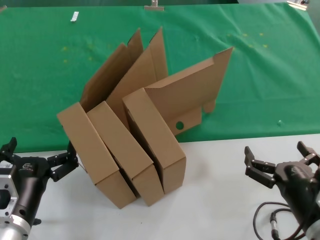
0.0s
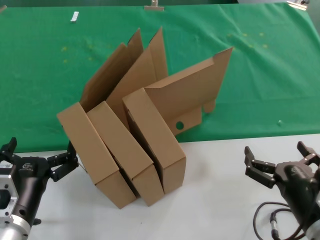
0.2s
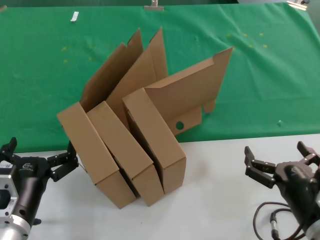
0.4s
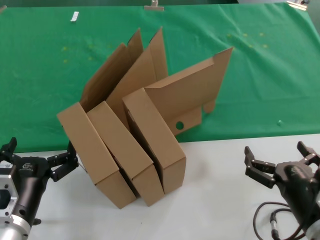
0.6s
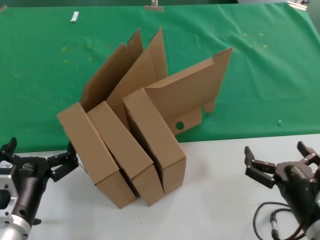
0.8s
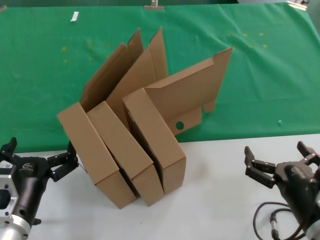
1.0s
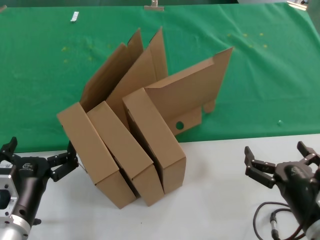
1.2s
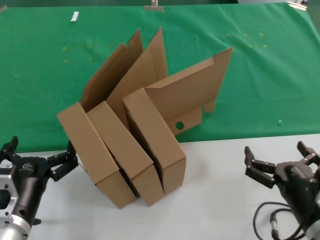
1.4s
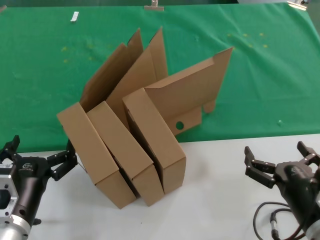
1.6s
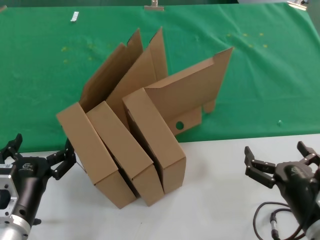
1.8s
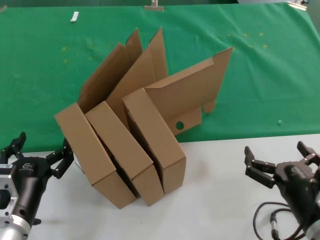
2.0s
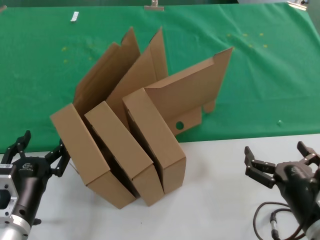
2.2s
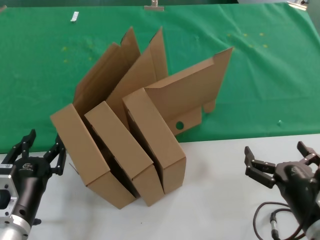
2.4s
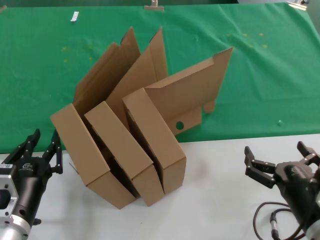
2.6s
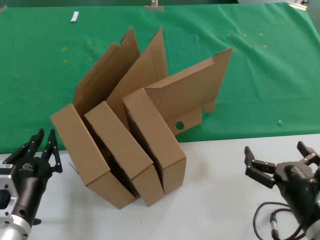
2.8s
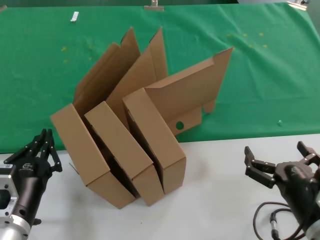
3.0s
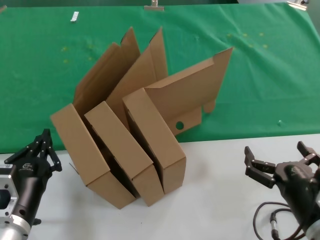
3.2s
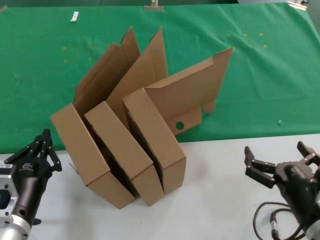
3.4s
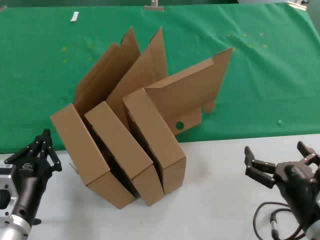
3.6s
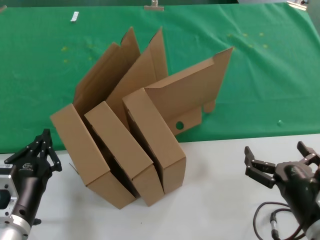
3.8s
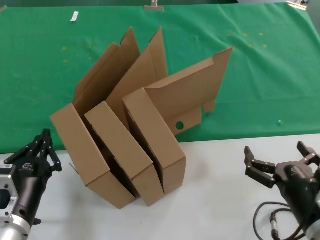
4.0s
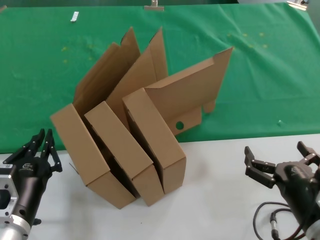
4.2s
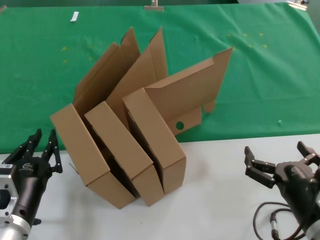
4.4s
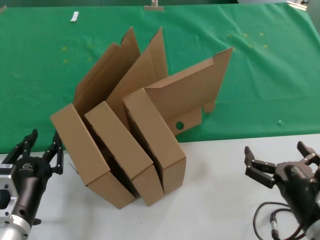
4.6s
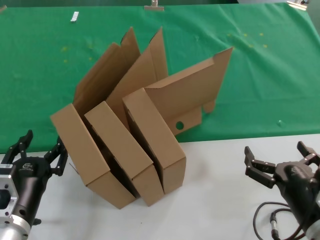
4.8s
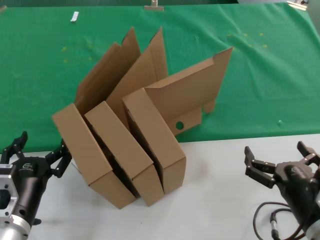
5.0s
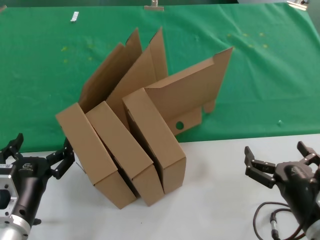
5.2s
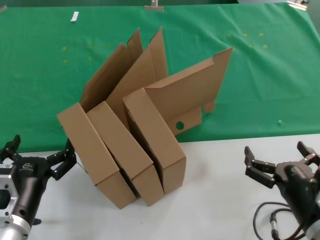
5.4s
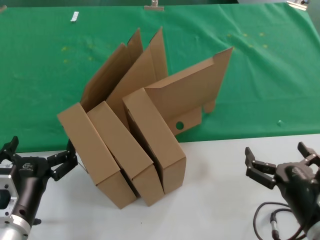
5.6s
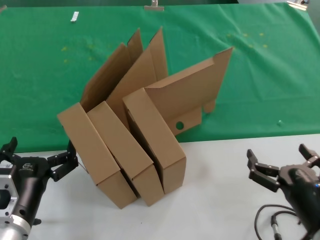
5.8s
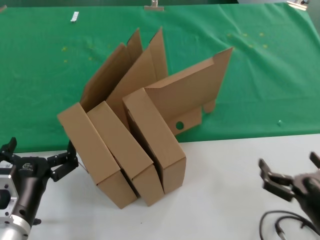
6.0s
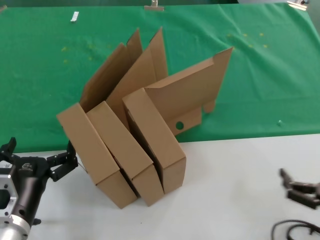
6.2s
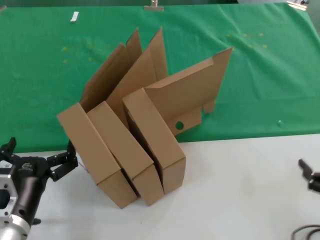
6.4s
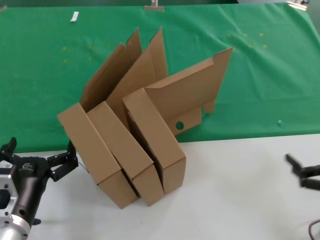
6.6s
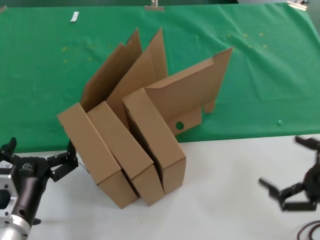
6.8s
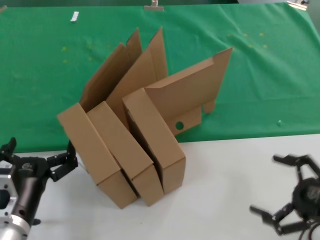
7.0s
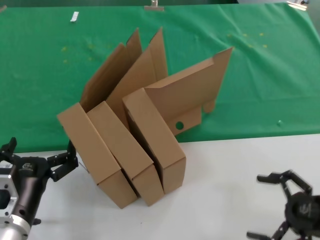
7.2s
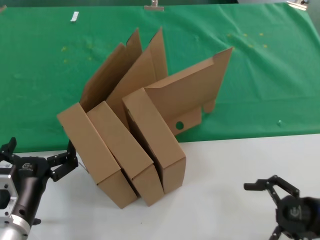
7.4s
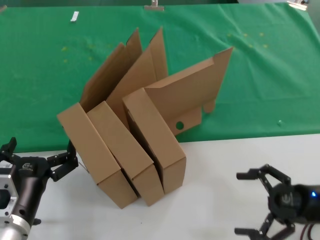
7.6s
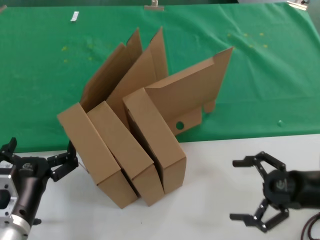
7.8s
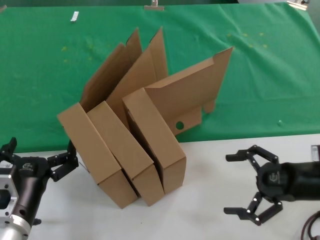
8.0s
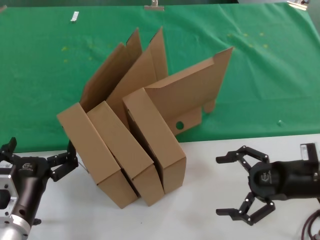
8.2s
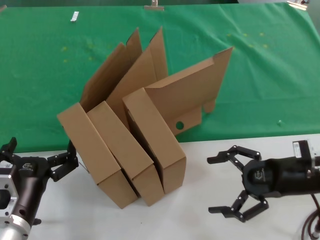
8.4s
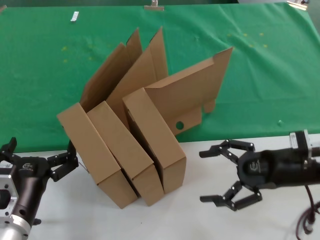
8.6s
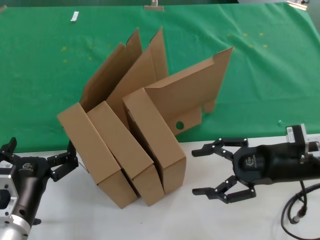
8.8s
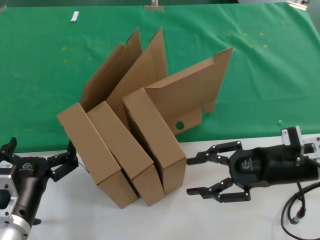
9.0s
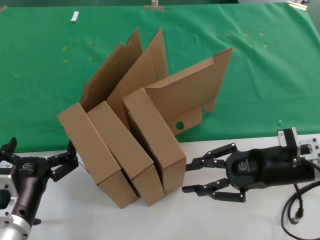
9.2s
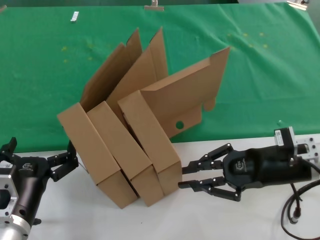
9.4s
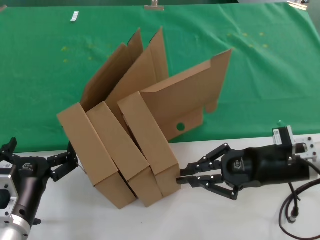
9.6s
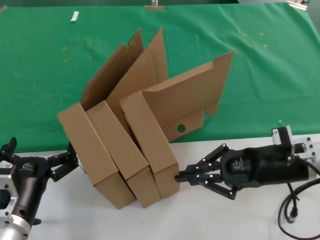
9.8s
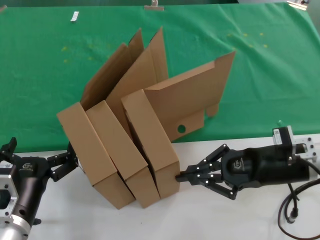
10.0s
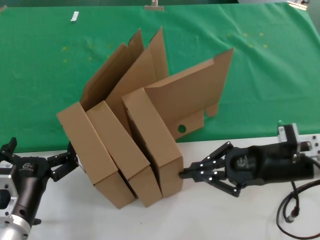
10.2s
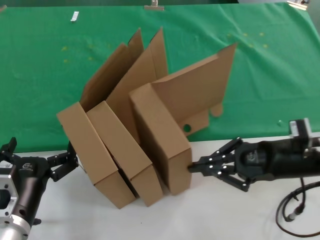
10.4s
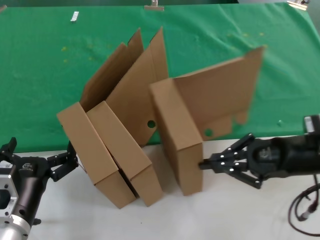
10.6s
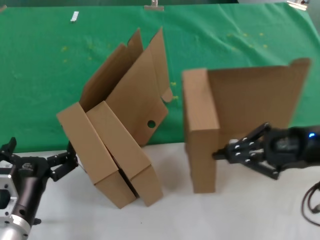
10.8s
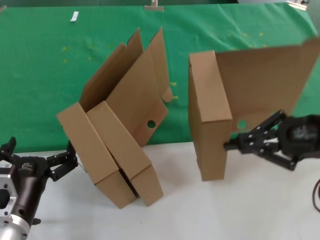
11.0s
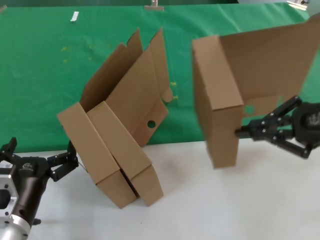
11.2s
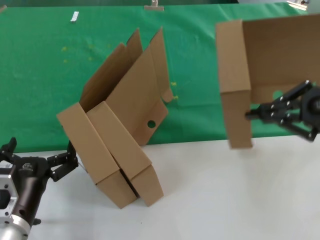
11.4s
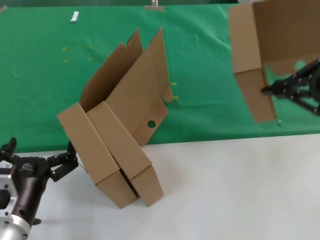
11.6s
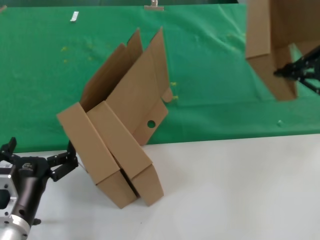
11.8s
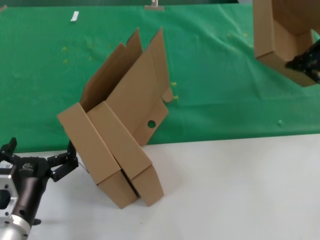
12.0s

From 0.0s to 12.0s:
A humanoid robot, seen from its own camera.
Task of the whole recording: pick up the paper box and put it at the back.
Step, from 0.0s to 10.0s: Grasp the paper box.
From 0.0s to 4.4s: Both hands stay put.
From 4.4s to 6.0s: There are only small adjustments of the hands.
From 6.0s to 7.6s: The right hand heads forward and to the right, covering approximately 15 cm.
From 7.6s to 9.0s: The right hand goes roughly 10 cm to the left, forward and upward.
From 9.0s to 10.4s: The hands move only a little.
From 10.4s to 12.0s: The right hand travels upward and to the right by roughly 20 cm.

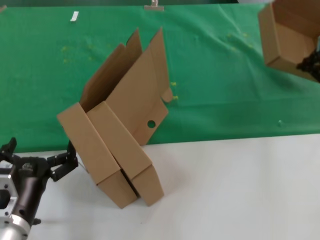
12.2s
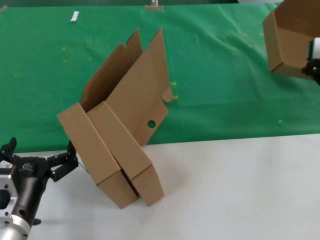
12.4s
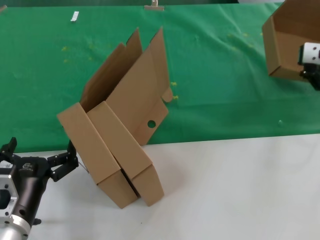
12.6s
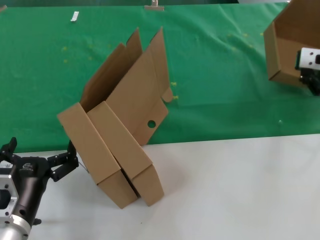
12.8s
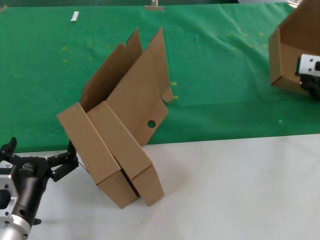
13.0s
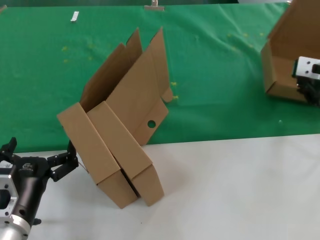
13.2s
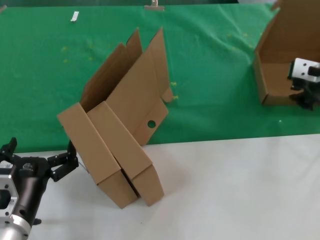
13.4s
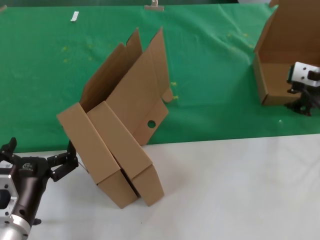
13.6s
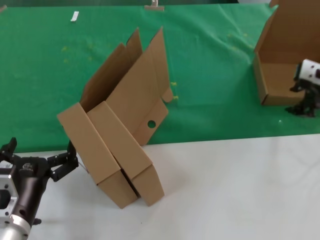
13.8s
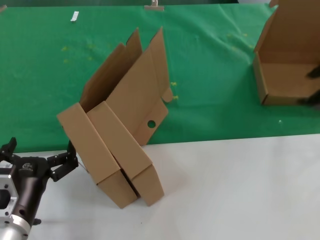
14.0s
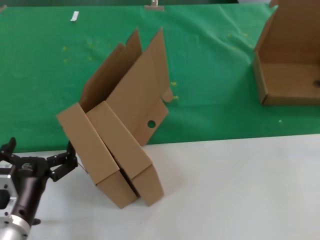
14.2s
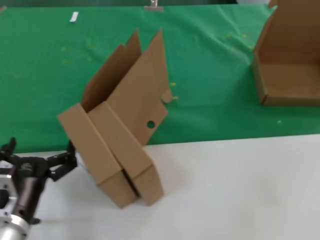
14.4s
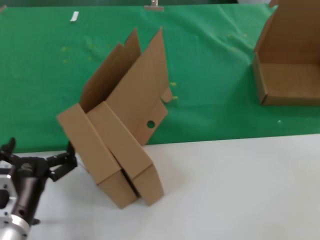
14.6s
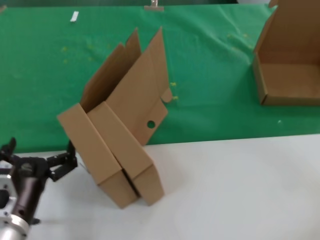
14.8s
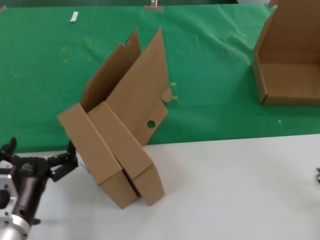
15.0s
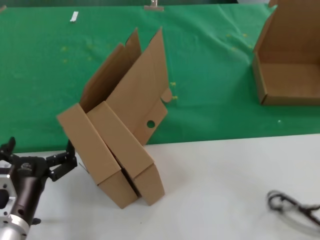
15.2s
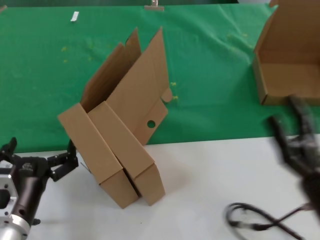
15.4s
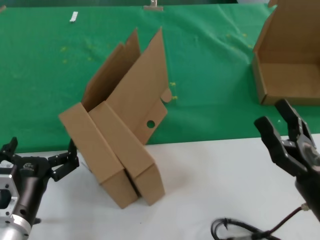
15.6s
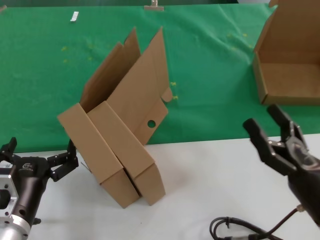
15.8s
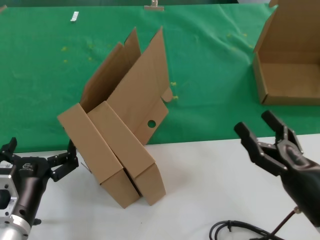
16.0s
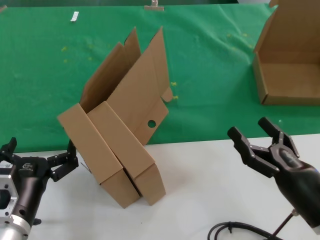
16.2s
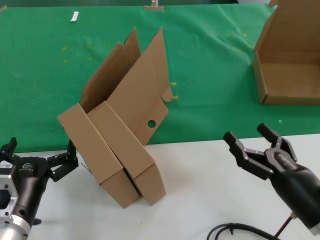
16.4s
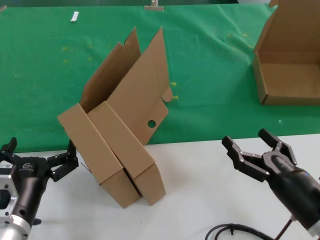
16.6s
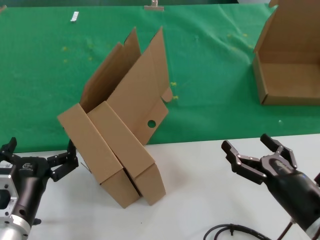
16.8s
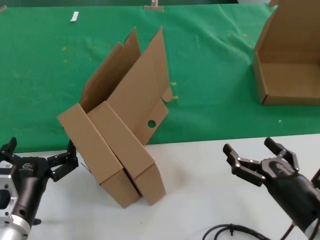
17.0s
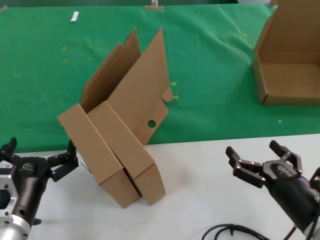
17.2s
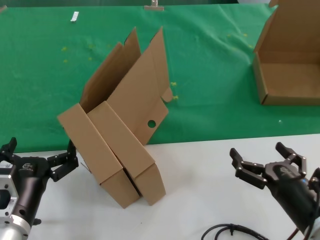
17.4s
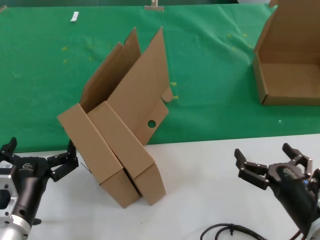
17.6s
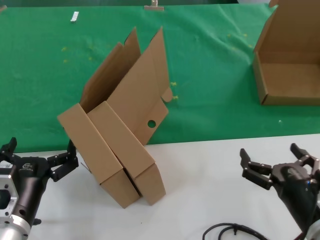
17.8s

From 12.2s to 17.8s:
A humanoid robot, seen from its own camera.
Task of the whole recording: pick up the paper box and put it at the back.
From 12.2s to 13.6s: The right hand heads downward, covering approximately 5 cm.
From 13.6s to 15.0s: The right hand moves backward, to the right and downward, approximately 25 cm.
From 15.0s to 16.4s: The right hand heads to the left and downward, covering roughly 25 cm.
From 16.4s to 17.8s: The right hand shifts by about 5 cm.
